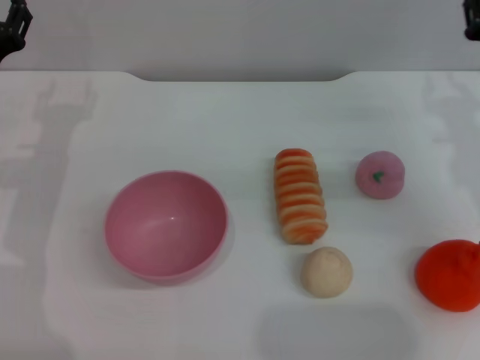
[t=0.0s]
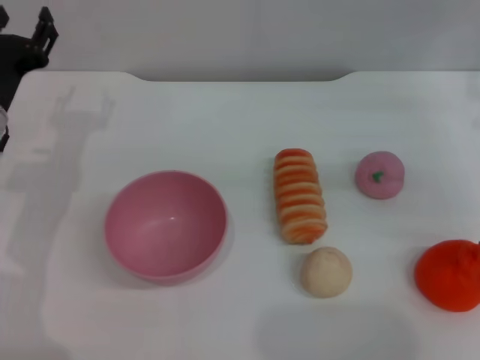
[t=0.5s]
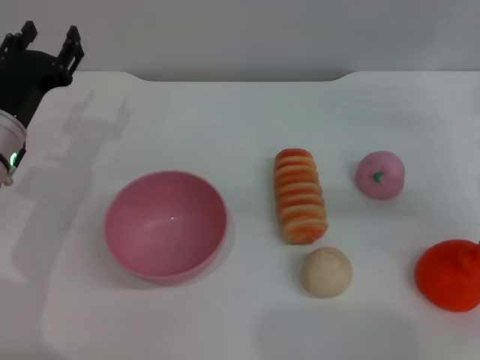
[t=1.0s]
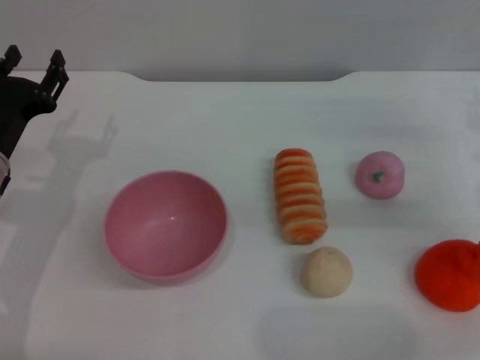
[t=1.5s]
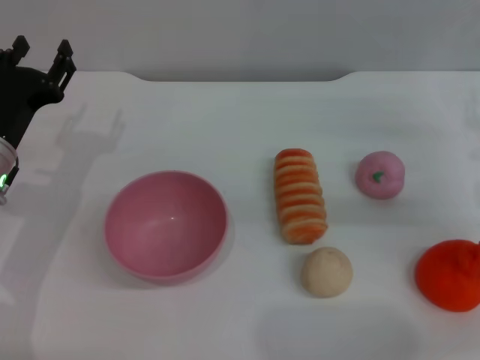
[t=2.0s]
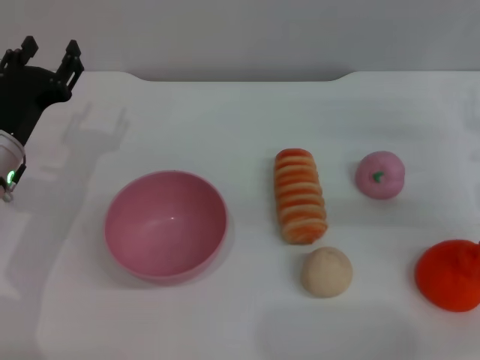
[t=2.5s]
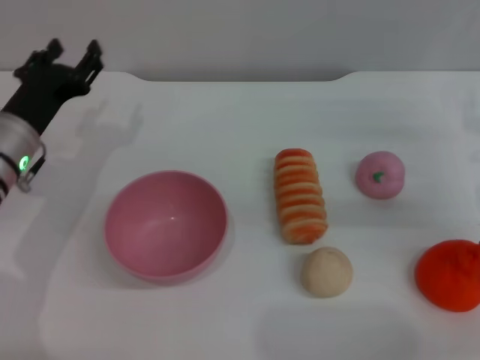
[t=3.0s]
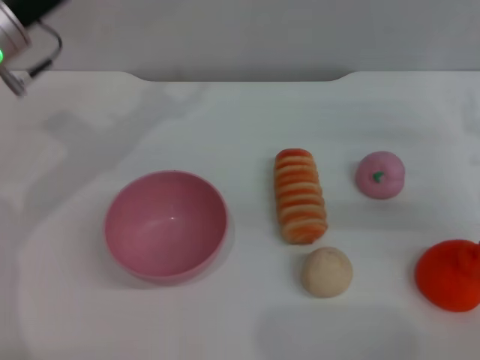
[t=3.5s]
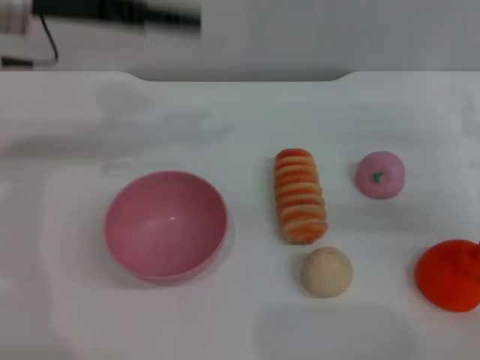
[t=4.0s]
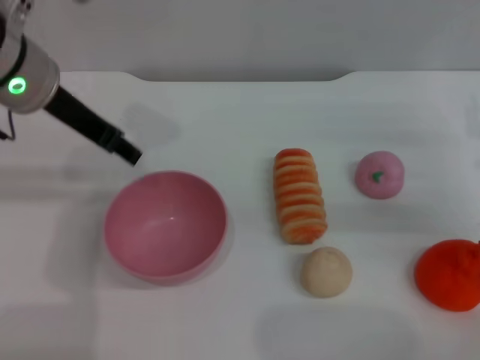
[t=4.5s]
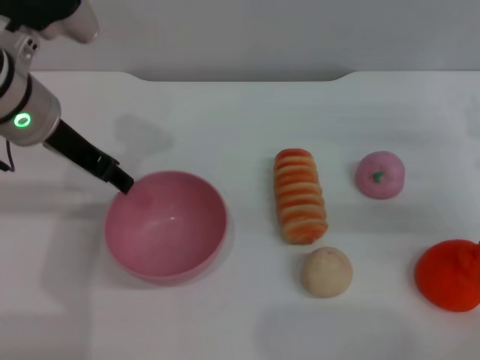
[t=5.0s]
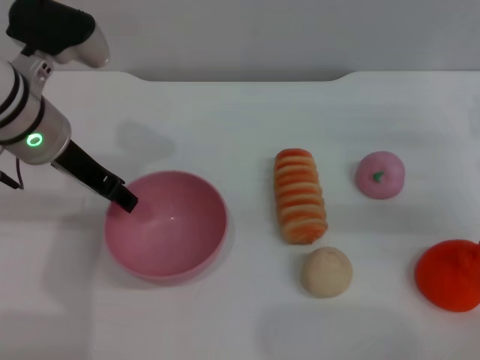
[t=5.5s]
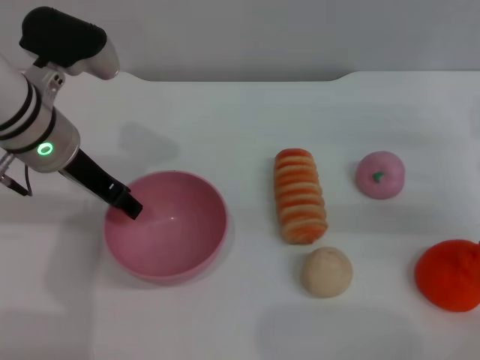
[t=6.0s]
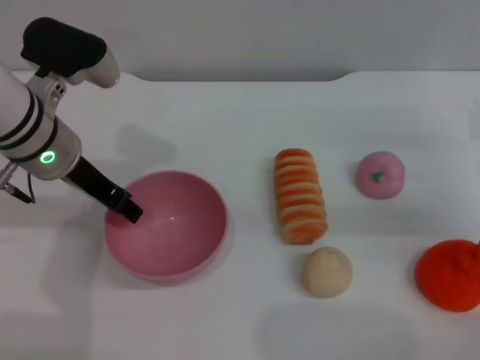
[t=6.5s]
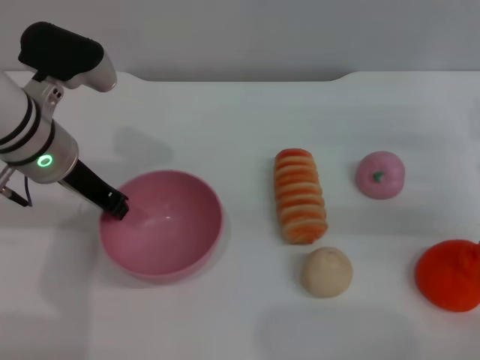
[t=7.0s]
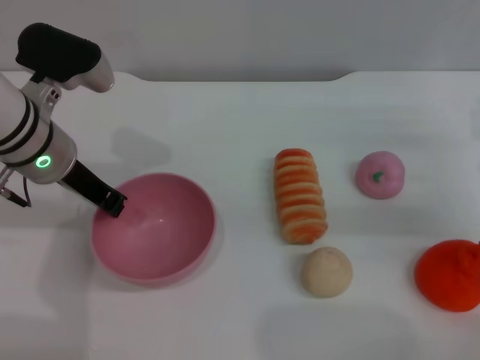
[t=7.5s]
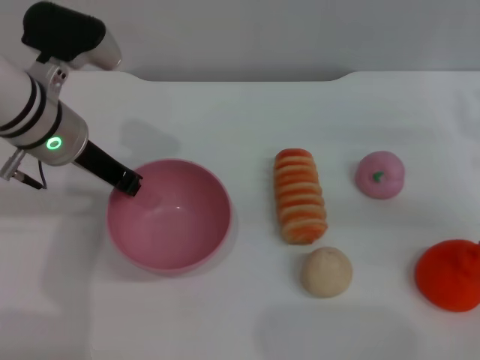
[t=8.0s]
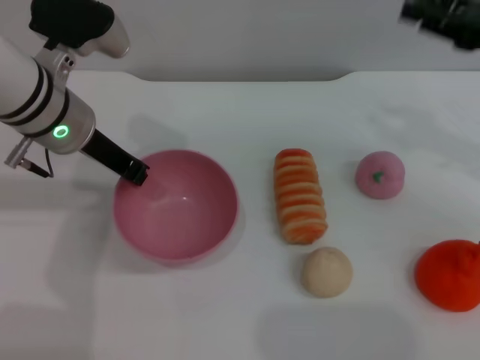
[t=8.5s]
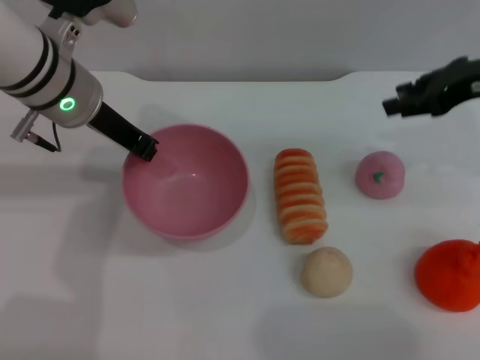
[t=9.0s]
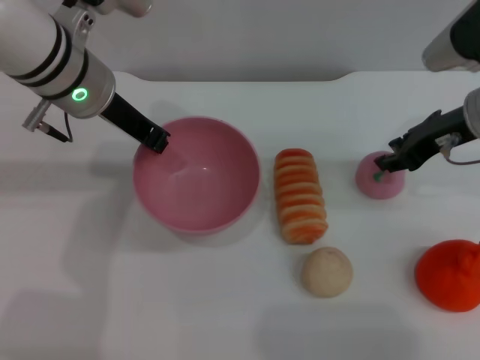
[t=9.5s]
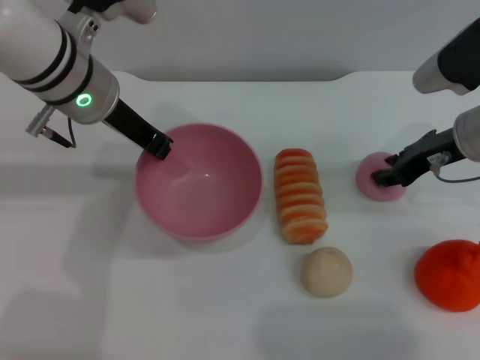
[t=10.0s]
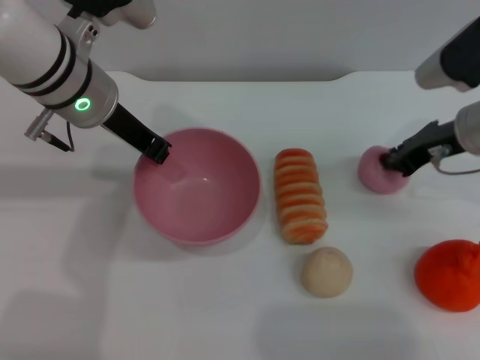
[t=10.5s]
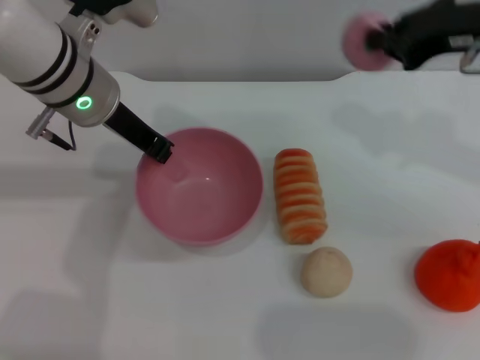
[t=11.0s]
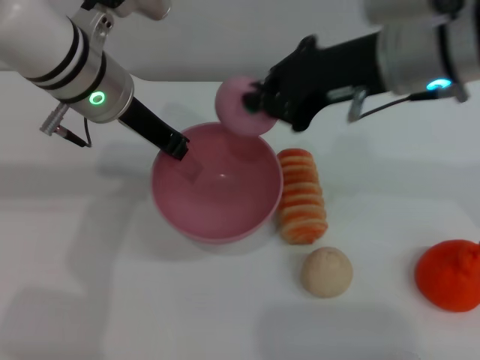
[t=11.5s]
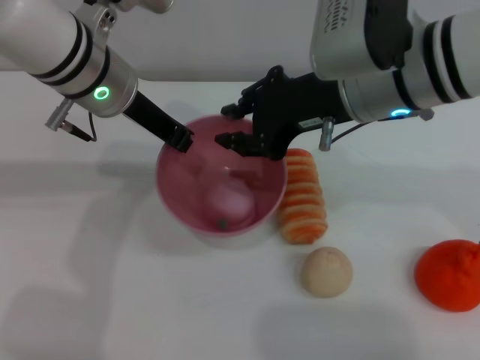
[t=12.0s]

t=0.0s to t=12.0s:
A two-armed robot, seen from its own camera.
Task of the whole recording: put the peach into the pink bowl and pour it out repeatedly.
Step, t=0.0s to t=8.5s: Pick up the bowl with the left gripper.
Step, t=9.0s to t=10.5s: Pick up the peach with the right gripper.
t=0.0s to t=2.0s: The left gripper ends up approximately 5 cm from where it was.
t=2.0s to t=4.0s: The left gripper heads upward and forward, covering approximately 20 cm.
t=4.0s to t=6.0s: The left gripper travels downward by about 10 cm.
t=6.0s to t=8.0s: The left gripper closes its fingers.
t=8.0s to t=10.0s: The left gripper changes place by approximately 5 cm; the right gripper travels to the left and forward by some 10 cm, and travels upward and back again, some 10 cm each way.
t=10.0s to t=12.0s: The right gripper moves to the left and upward, approximately 15 cm, and closes.

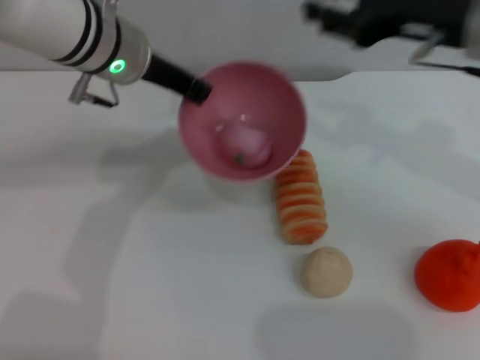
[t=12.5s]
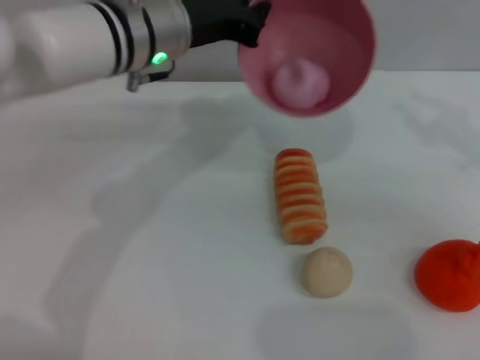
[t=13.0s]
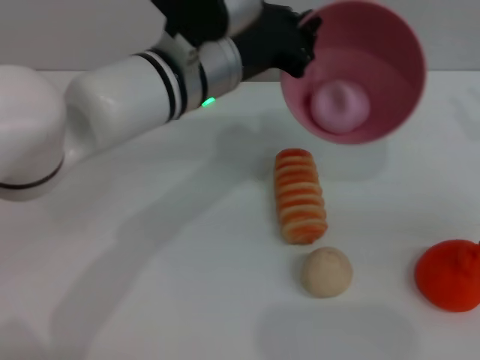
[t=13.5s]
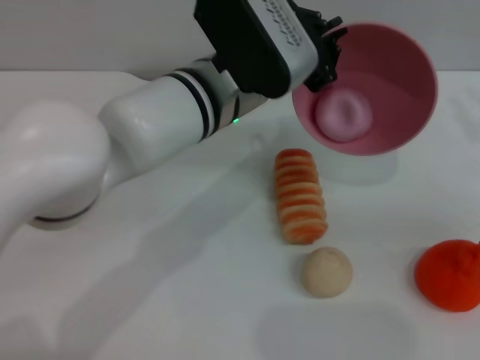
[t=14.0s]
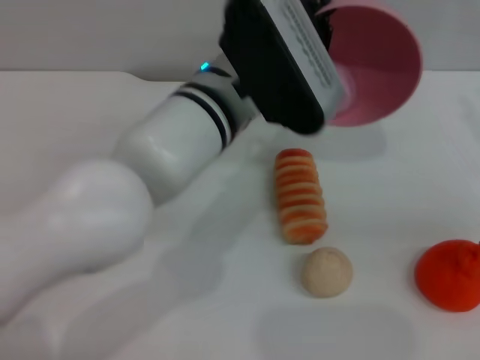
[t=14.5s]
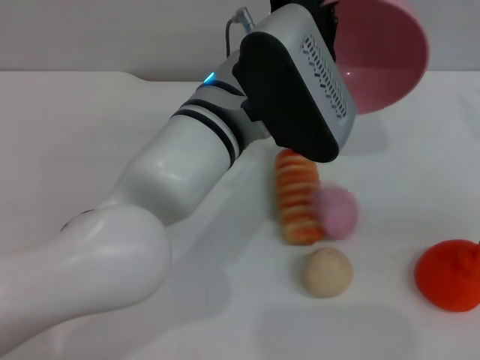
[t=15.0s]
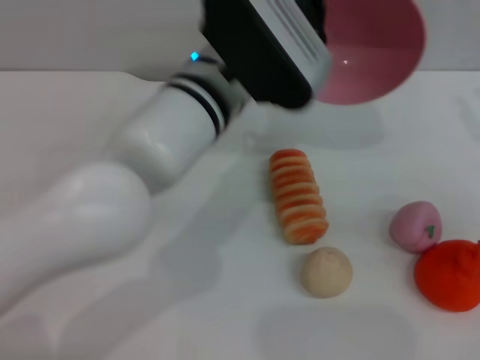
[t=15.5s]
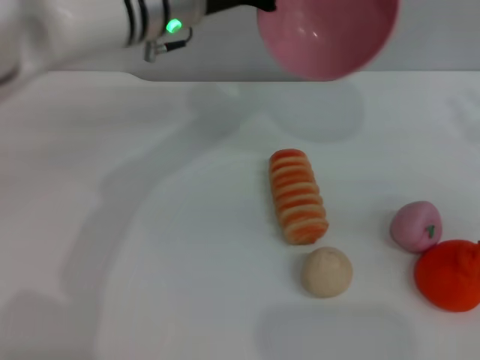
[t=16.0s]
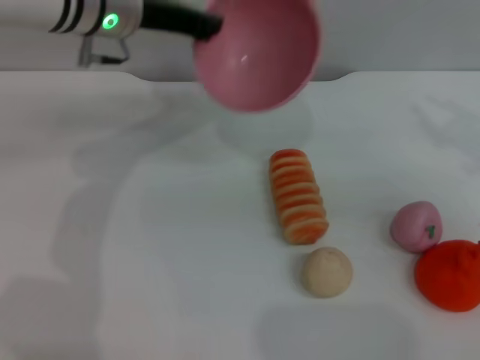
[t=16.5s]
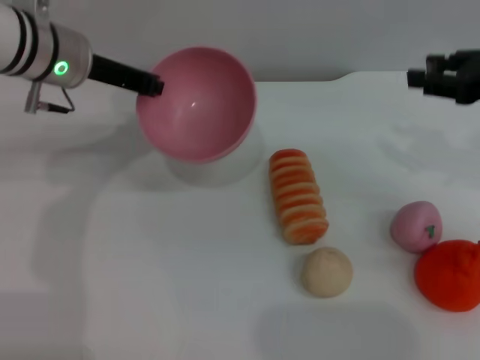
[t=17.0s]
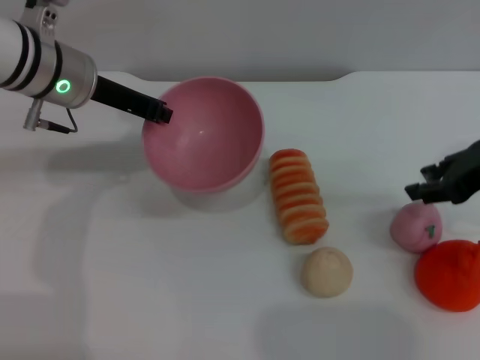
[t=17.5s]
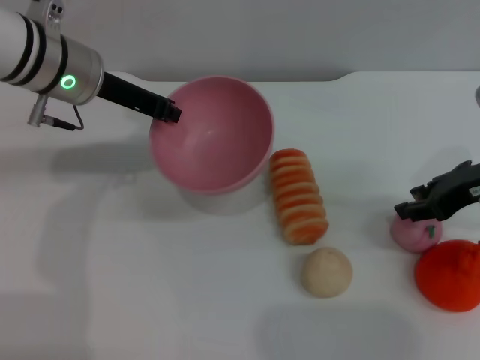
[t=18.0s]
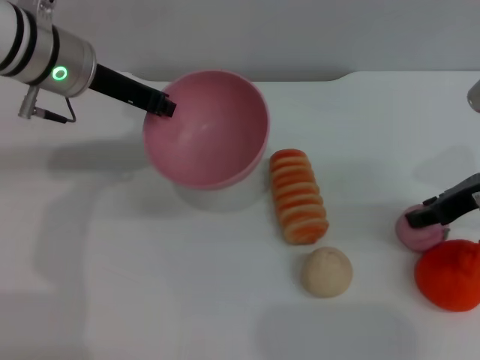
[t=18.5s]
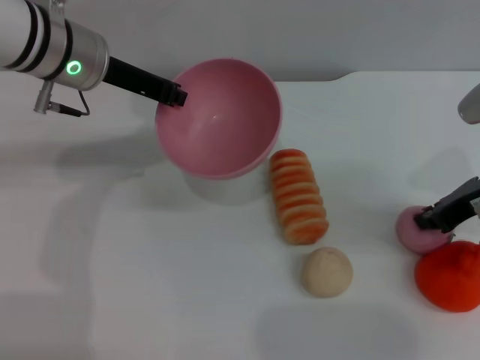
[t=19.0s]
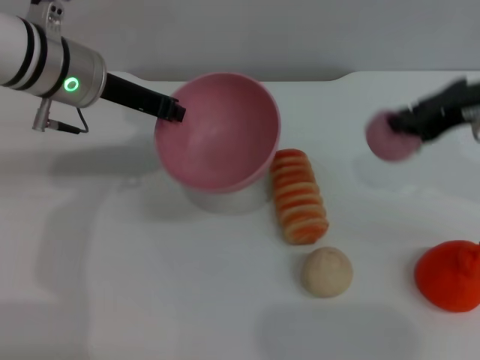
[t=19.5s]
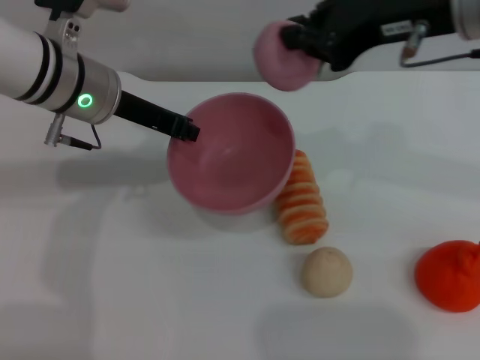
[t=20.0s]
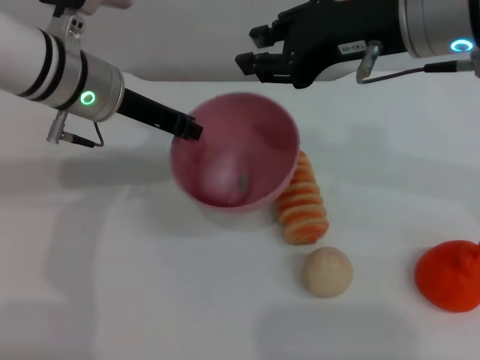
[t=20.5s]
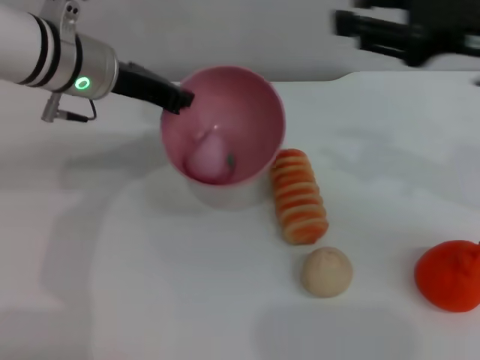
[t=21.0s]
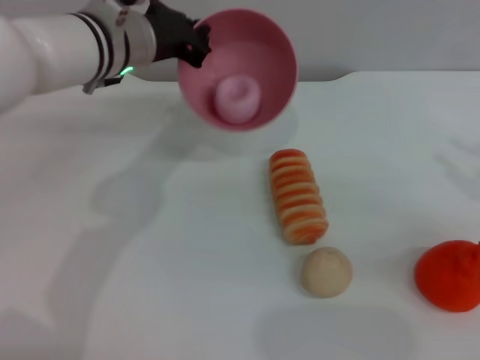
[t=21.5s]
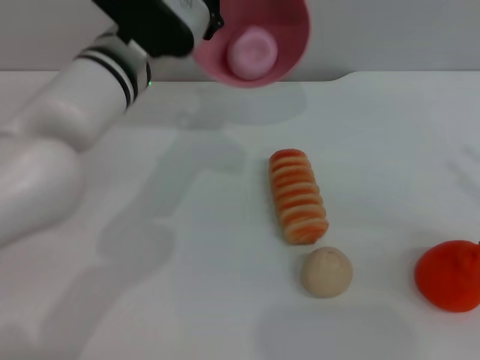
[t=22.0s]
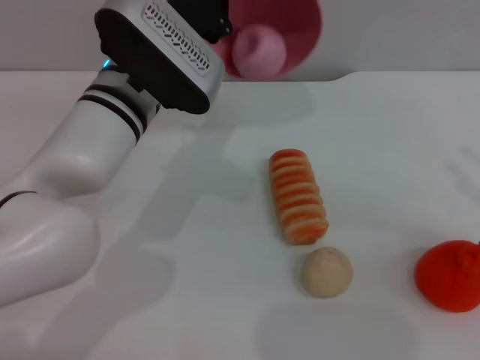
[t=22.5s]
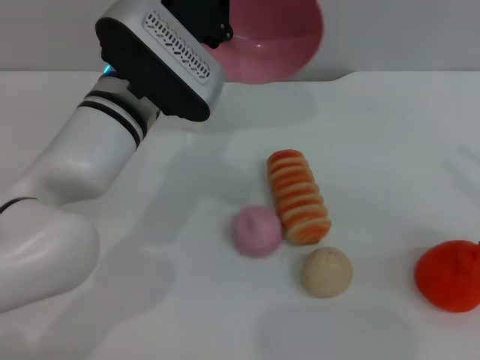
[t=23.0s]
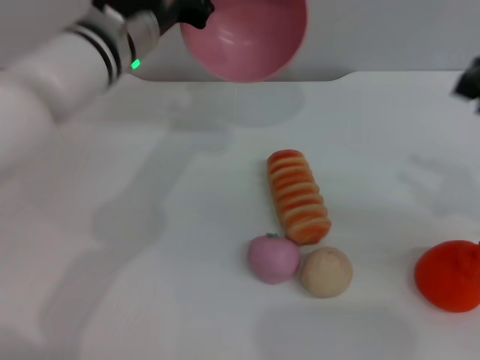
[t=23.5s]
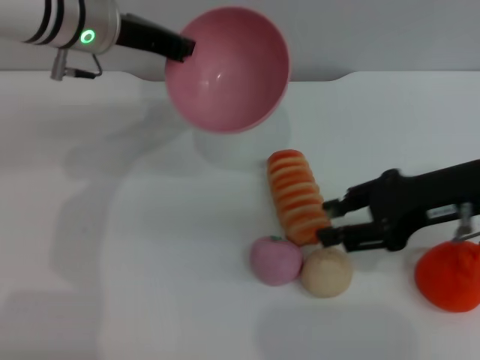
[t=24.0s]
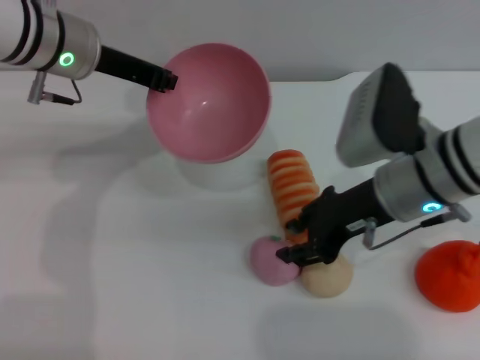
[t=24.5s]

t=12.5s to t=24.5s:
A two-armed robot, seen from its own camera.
Task of the whole recording: put the peach into the pink bowl and pour it out repeatedly.
Step, t=12.5s to t=15.0s: Pour the peach out of bowl.
Step, t=15.5s to t=19.5s: Pick up the peach with the right gripper.
Step, t=20.0s to t=20.5s: Place the peach into the bowl.
Step, t=21.0s to t=22.5s: Pour the peach out of bowl.
t=12.5s to t=14.5s: The left gripper moves to the right and backward, approximately 15 cm. Meanwhile the right gripper shifts roughly 15 cm to the right.
t=14.5s to t=16.5s: The left gripper goes roughly 15 cm to the left and forward.
t=16.5s to t=18.5s: The right gripper travels to the left by some 5 cm; the left gripper changes place by some 5 cm.
t=18.5s to t=20.5s: The right gripper moves upward and to the left, roughly 20 cm, and closes its fingers.
t=20.5s to t=22.5s: The right gripper travels to the right and backward by approximately 25 cm, and opens its fingers, while the left gripper travels to the right by some 5 cm.
t=22.5s to t=24.5s: The left gripper travels to the left and forward by some 10 cm; the right gripper travels to the left and forward by roughly 25 cm.

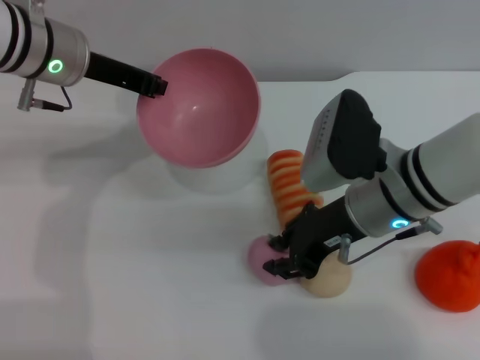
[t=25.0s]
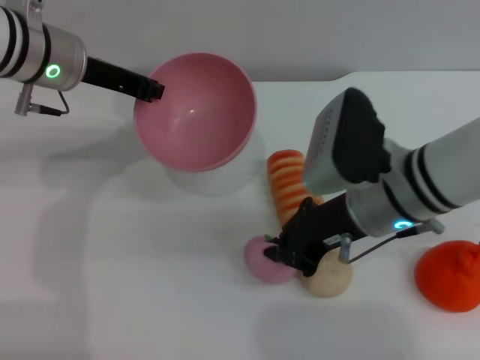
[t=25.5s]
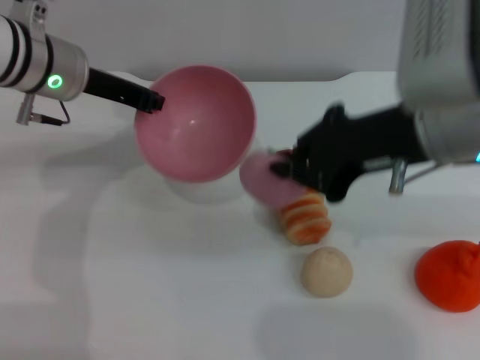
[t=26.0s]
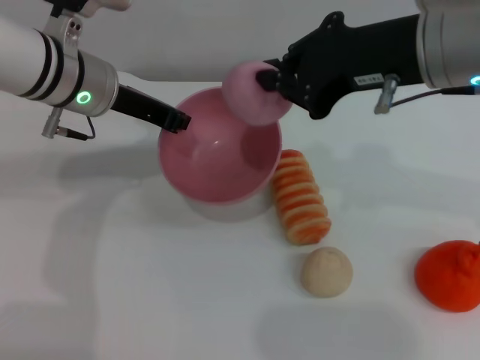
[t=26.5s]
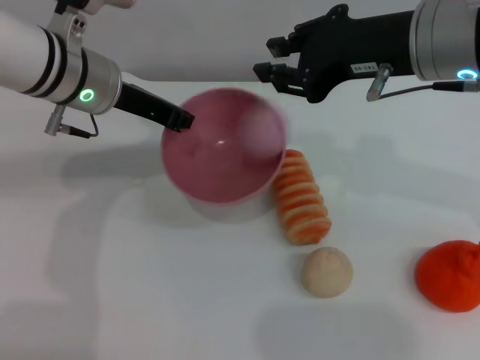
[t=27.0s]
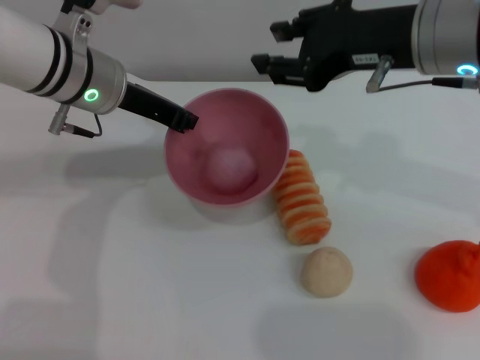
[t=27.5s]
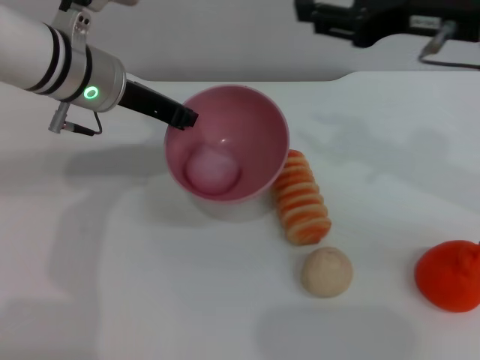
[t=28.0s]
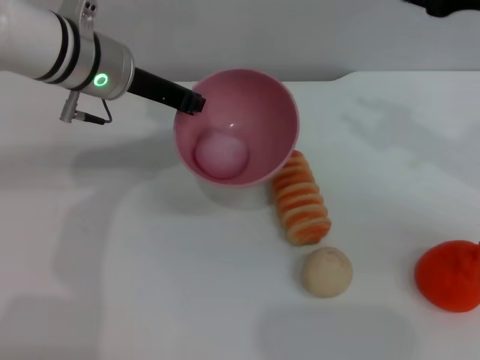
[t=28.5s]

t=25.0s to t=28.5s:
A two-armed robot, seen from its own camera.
Task of the whole recording: put the peach into the pink bowl and pour it out repeatedly.
Step, t=26.0s to t=27.0s: Place the peach into the bowl.
t=25.0s to t=27.0s: The right gripper goes some 15 cm upward, and closes its fingers.
t=27.0s to t=28.5s: The right gripper goes some 10 cm to the right, and opens up.
